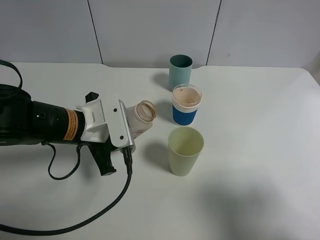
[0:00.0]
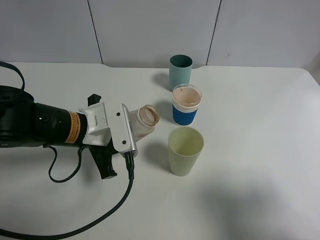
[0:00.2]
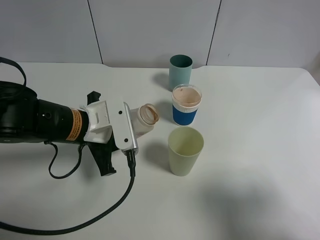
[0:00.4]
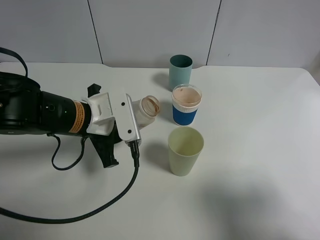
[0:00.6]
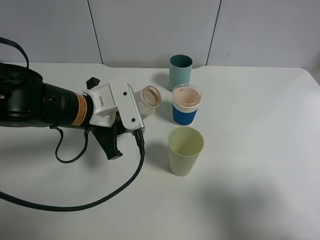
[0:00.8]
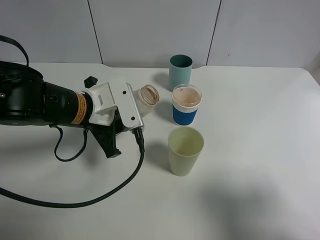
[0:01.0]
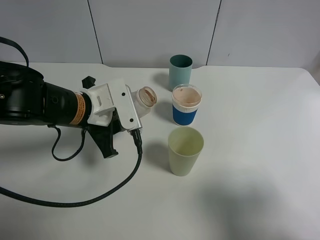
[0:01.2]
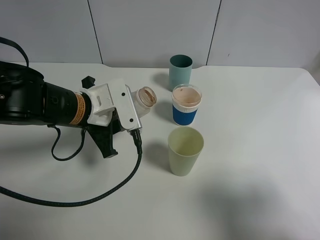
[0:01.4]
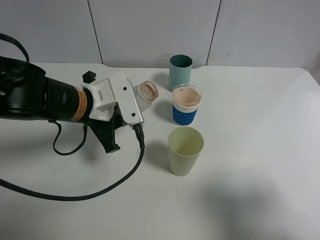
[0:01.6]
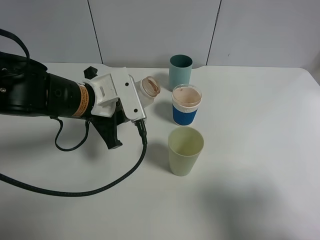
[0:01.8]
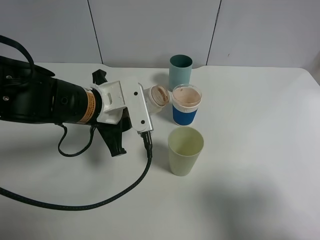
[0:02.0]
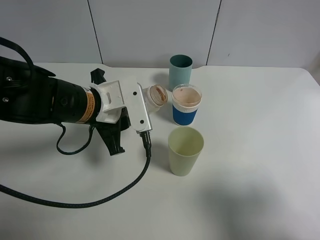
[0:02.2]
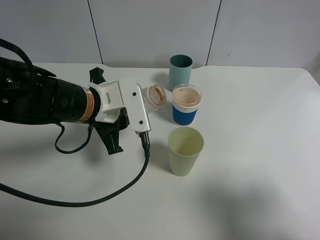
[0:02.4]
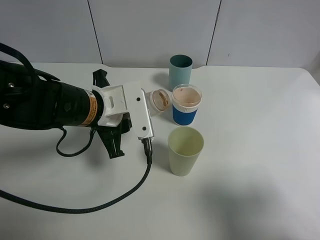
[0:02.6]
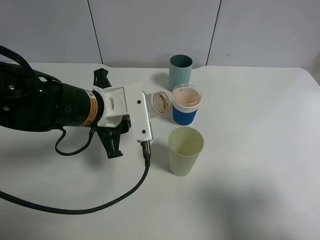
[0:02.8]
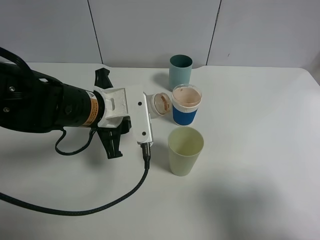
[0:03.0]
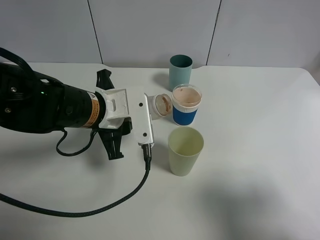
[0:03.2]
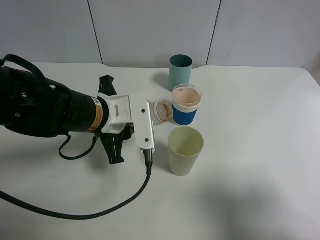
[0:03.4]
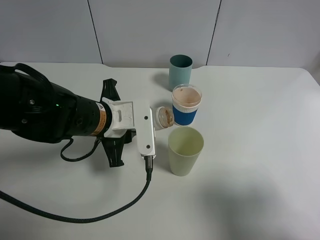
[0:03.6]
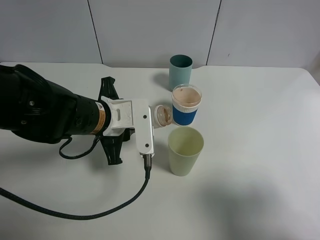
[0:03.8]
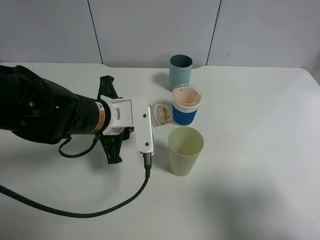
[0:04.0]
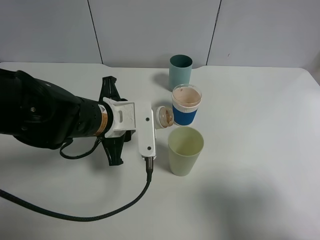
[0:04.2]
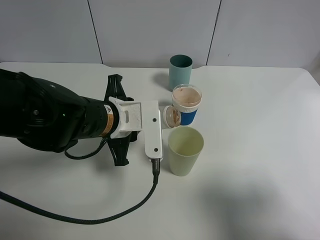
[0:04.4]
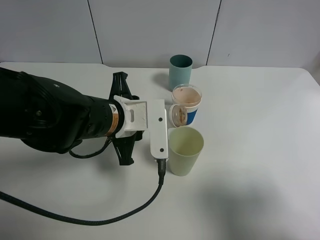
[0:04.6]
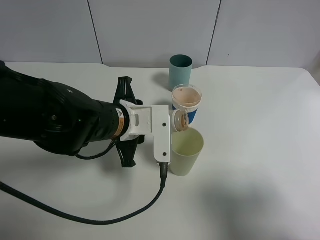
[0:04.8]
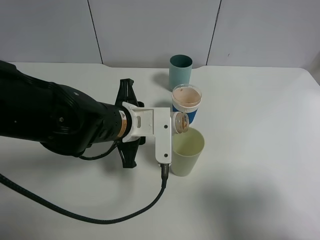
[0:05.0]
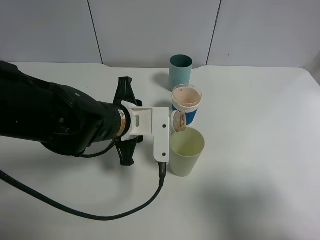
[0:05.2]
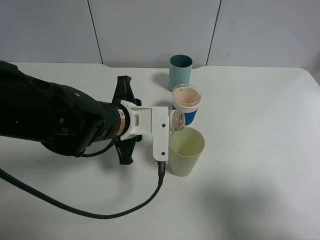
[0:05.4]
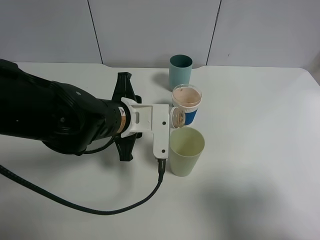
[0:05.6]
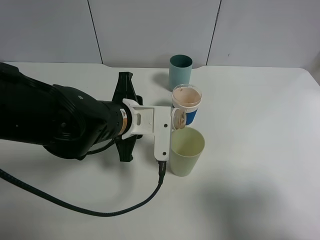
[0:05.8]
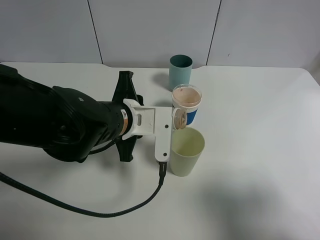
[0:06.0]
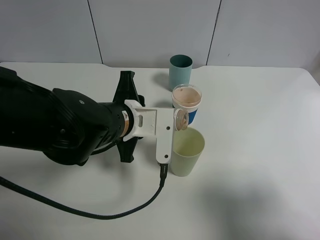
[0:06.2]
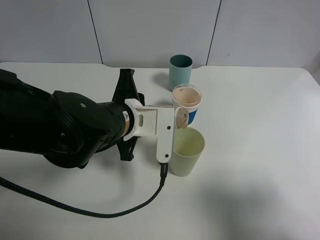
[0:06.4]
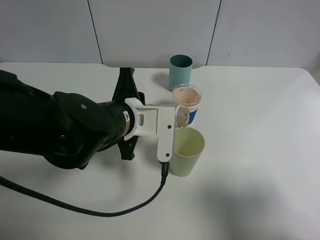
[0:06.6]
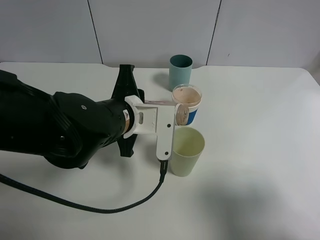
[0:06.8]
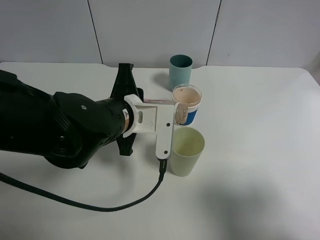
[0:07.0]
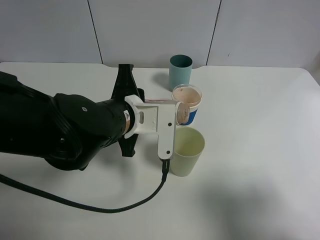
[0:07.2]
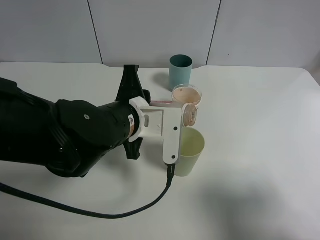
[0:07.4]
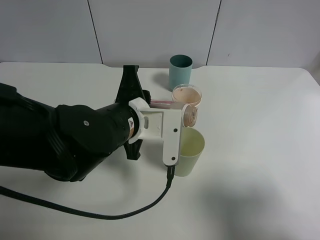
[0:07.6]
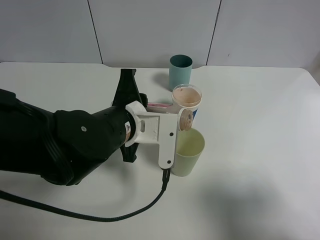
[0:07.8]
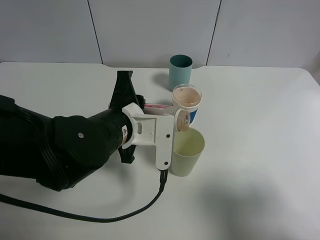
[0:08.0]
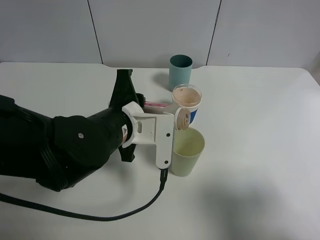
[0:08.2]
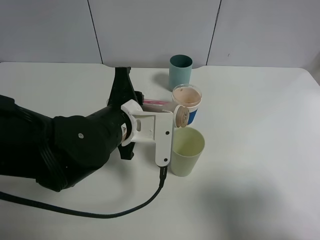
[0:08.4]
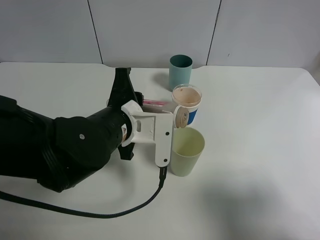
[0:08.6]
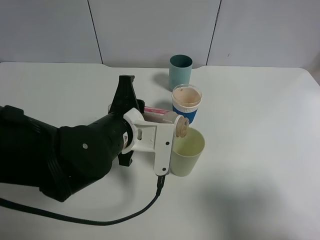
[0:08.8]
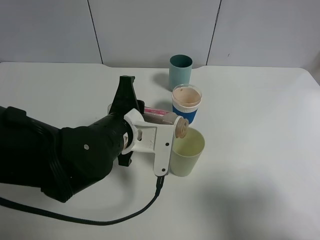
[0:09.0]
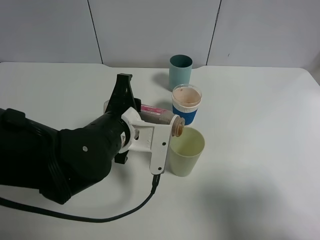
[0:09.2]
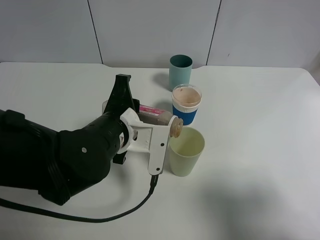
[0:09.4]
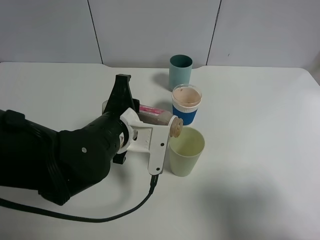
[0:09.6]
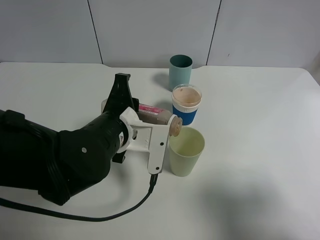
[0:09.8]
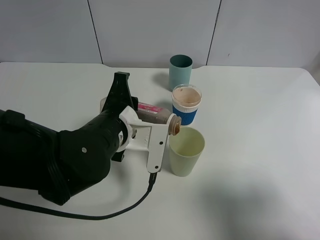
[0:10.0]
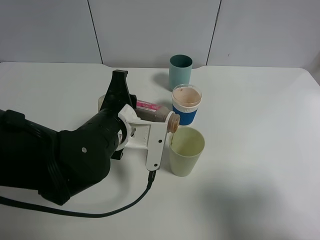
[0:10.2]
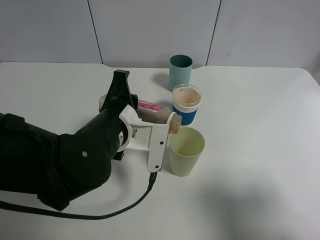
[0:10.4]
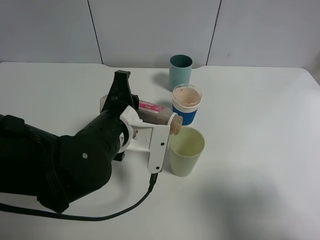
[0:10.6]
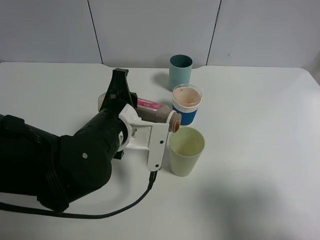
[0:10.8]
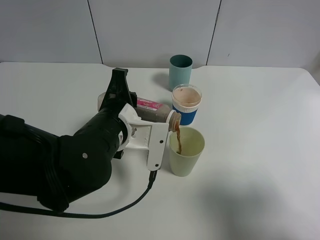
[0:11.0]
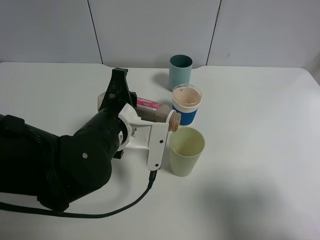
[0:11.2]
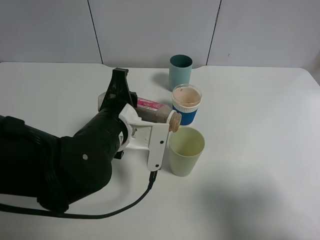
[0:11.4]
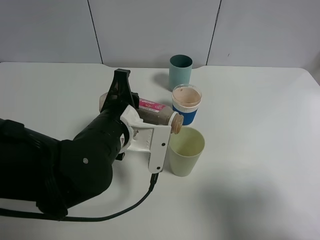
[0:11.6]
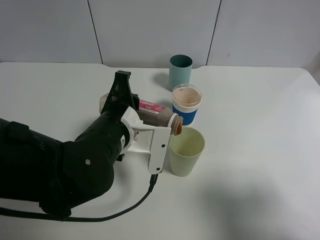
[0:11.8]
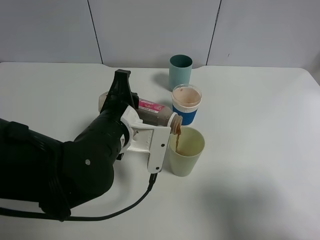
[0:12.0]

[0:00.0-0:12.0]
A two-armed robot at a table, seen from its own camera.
Task of the whole recording: use a gripper to hold the bottle of the drink and pour it into a random cup.
0:00.0 to 0:03.0: The grippers stay close to where they were, moving slightly.
0:03.0 to 0:06.0: The grippers make only small movements.
0:06.0 to 0:10.4: The grippers stay close to where they were, moving slightly.
0:10.4 to 0:12.0: Both grippers stay about where they are.

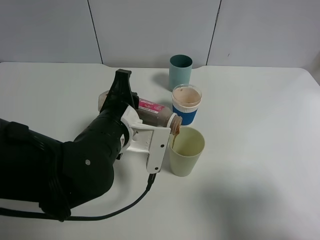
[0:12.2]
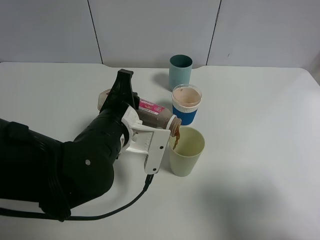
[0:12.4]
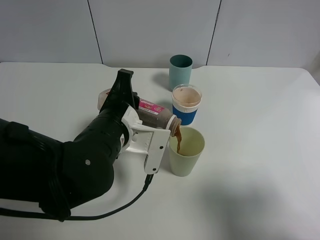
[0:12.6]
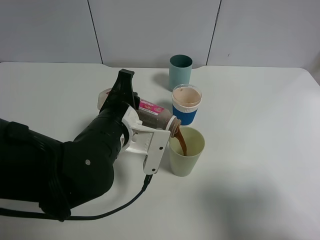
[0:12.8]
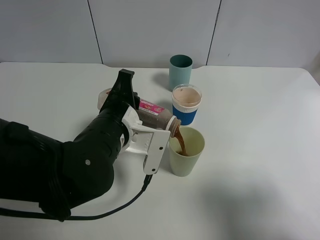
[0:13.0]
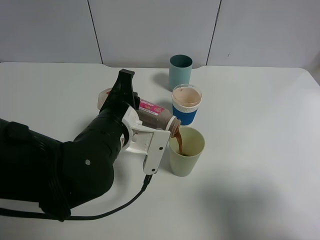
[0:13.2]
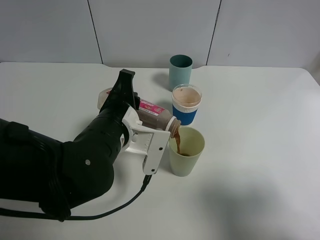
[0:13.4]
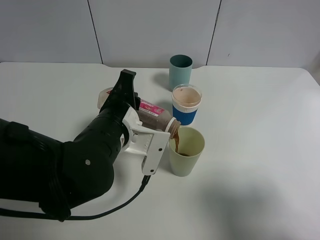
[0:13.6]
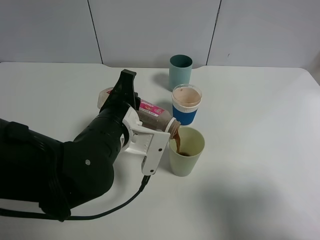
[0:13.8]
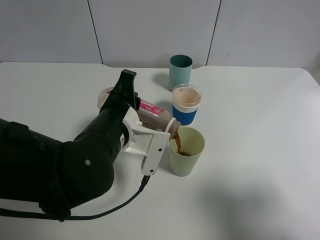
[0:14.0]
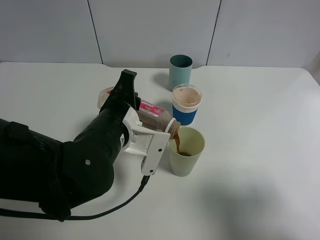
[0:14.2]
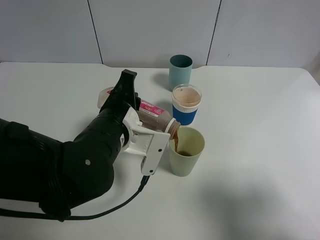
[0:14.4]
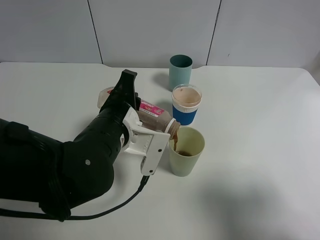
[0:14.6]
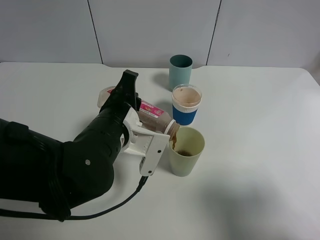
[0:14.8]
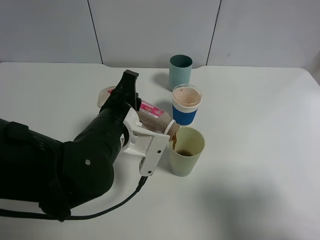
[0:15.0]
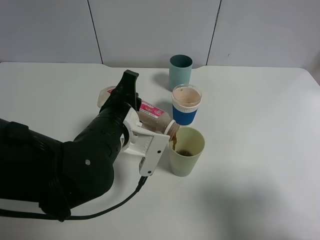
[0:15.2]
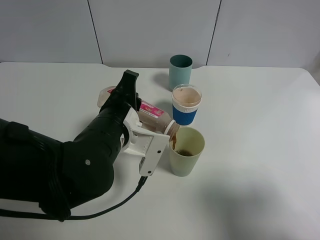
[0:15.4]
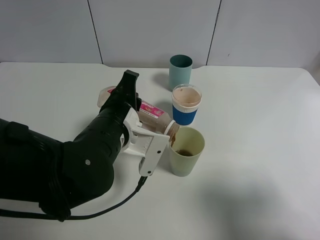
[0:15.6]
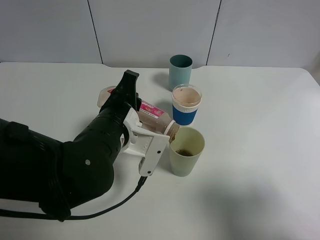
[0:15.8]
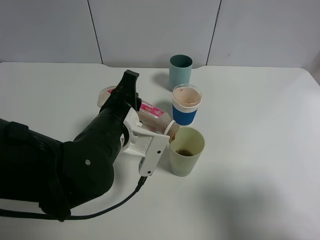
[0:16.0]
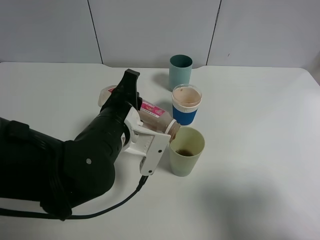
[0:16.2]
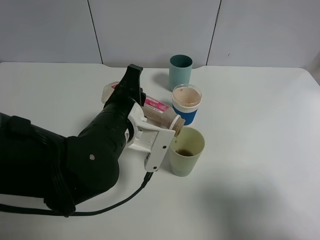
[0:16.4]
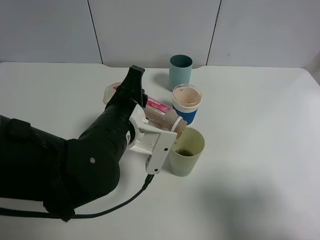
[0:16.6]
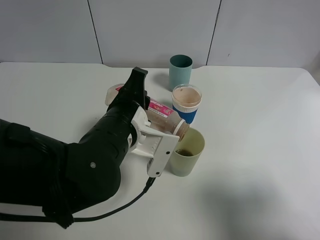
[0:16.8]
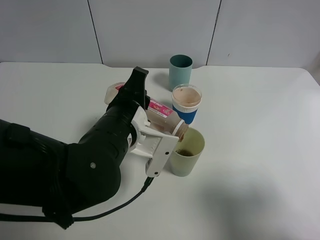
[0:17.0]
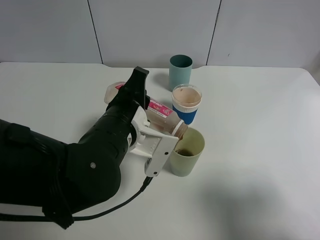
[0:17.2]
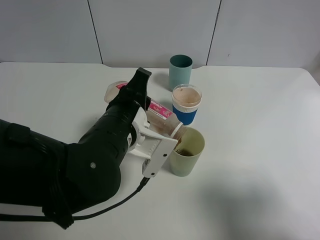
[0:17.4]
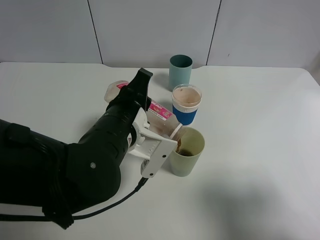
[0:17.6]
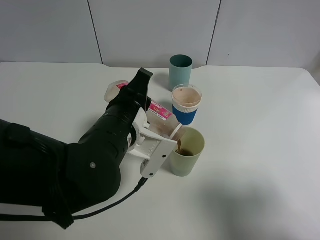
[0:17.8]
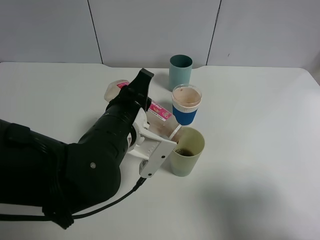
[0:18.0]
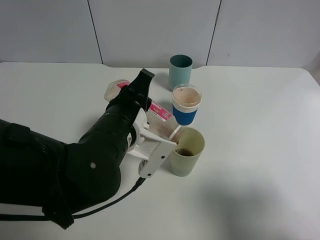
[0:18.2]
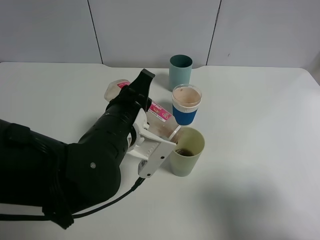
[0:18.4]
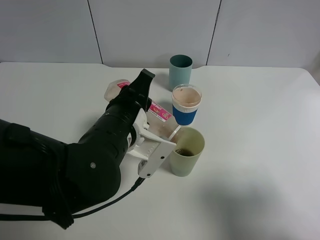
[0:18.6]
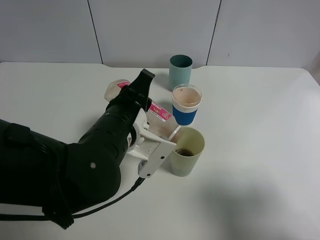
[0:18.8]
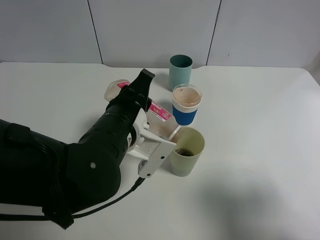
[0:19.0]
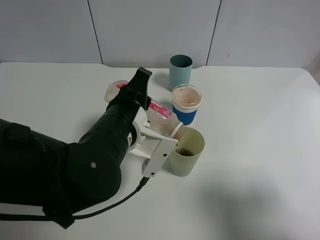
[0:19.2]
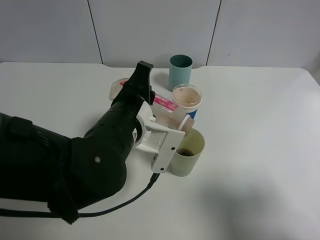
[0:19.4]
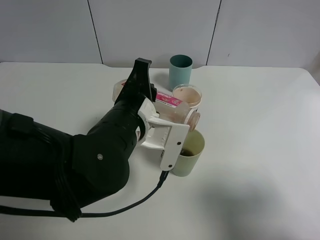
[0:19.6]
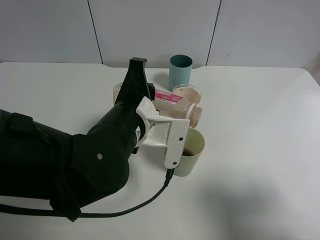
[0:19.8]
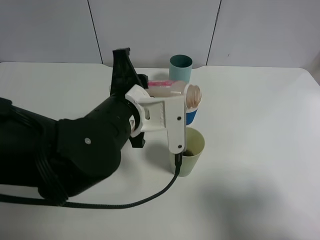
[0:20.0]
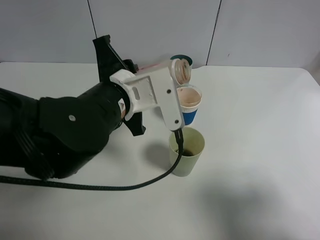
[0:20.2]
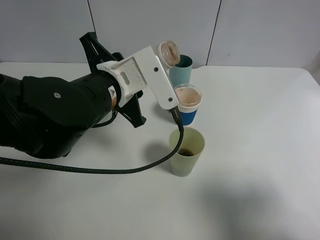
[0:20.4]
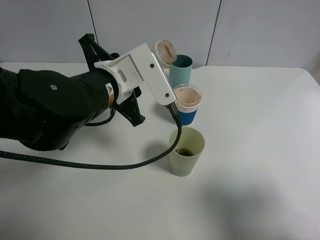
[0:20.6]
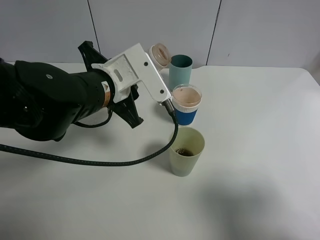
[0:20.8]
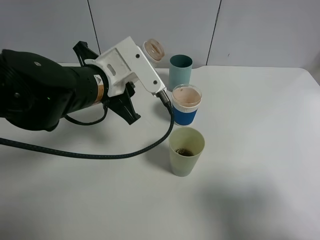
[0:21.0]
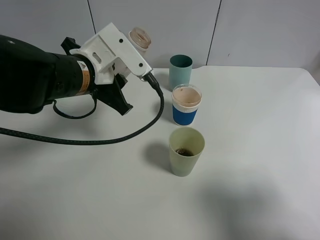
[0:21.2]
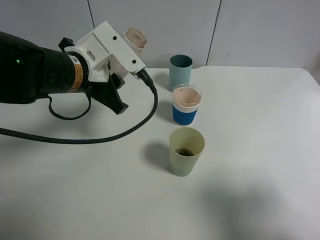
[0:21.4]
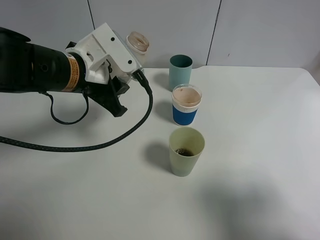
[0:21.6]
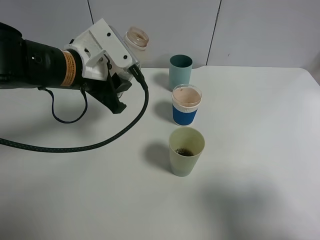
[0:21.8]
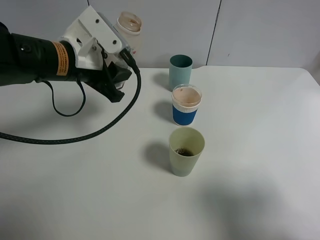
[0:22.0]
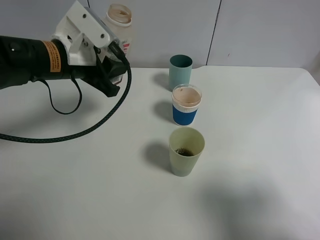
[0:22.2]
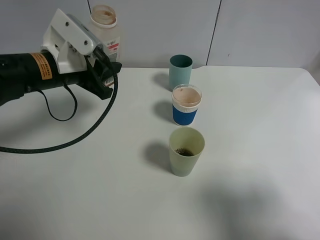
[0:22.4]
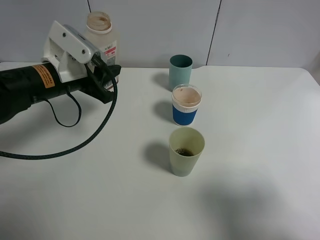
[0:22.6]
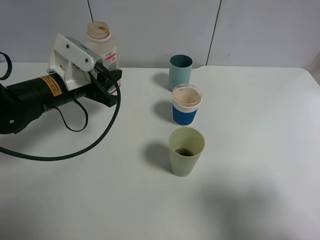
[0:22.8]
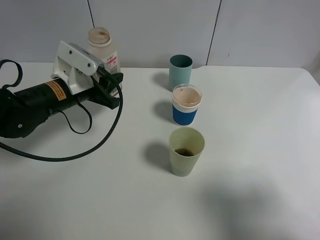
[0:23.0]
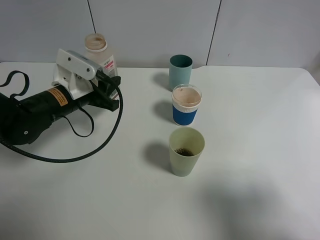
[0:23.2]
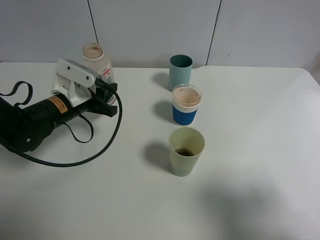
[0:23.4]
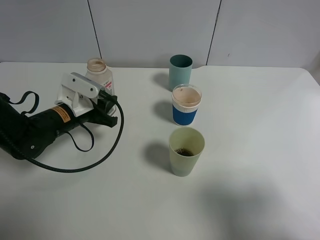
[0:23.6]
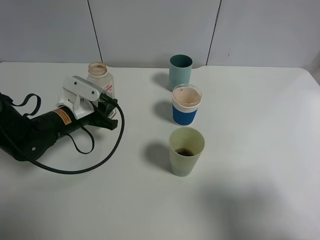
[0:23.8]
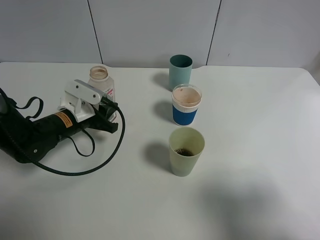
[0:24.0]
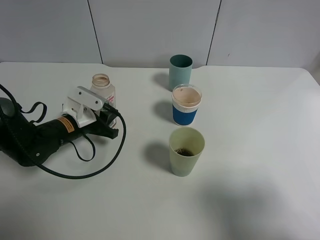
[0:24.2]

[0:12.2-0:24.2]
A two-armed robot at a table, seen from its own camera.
Task of the whole recording: use a gripper to hold the bottle of the drink and pour it into a random cup.
Step, 0:12.2 to 0:19.2: Pour the cranberry juice into the White Plastic Cup with the left gripper.
0:12.2 to 0:13.8: The grippers stay close to where they were, moving slightly.
0:13.8 to 0:16.6: The two grippers keep their place.
0:16.6 to 0:18.2: There are only small adjustments of the grippers.
0:19.8 to 0:21.2: The left gripper moves to the left and forward, roughly 10 cm.
0:21.2 to 0:22.6: The left gripper shifts approximately 5 cm to the left.
0:22.6 to 0:24.2: The left gripper shifts roughly 15 cm downward.
